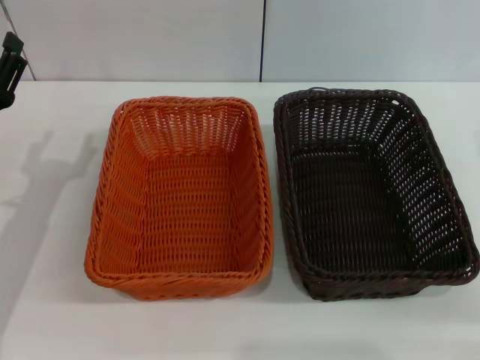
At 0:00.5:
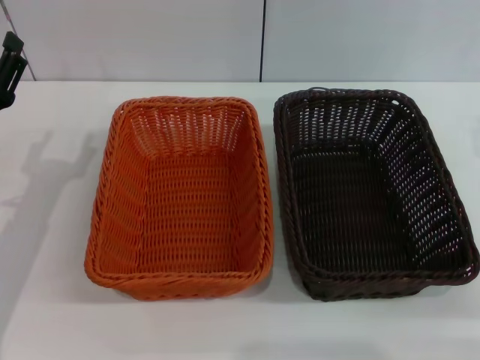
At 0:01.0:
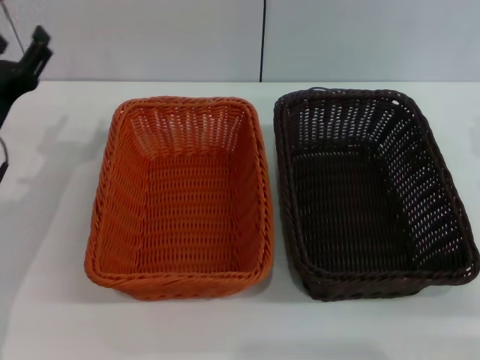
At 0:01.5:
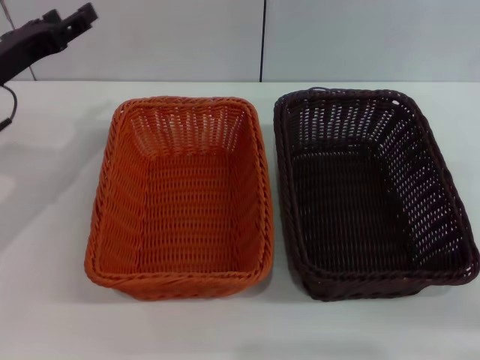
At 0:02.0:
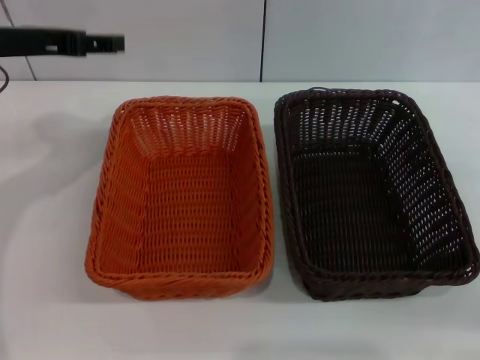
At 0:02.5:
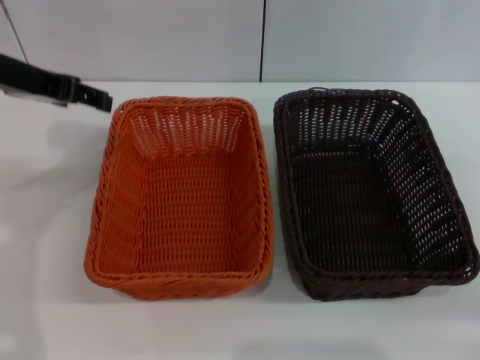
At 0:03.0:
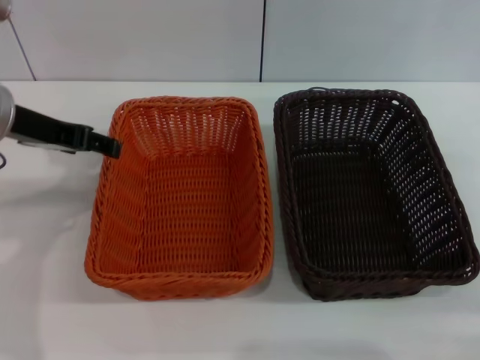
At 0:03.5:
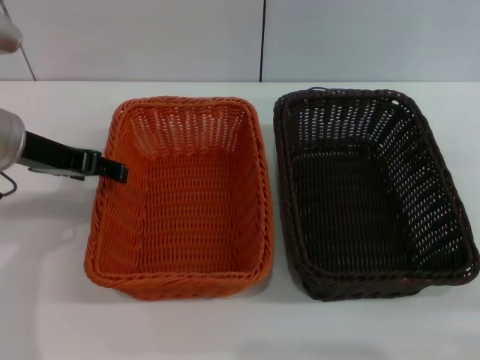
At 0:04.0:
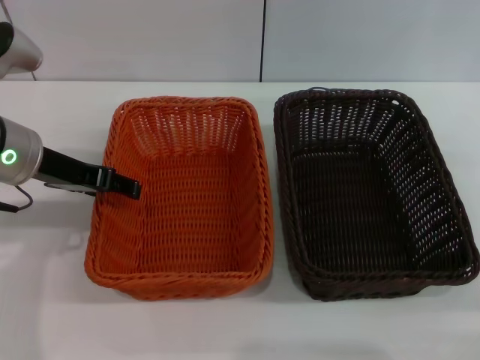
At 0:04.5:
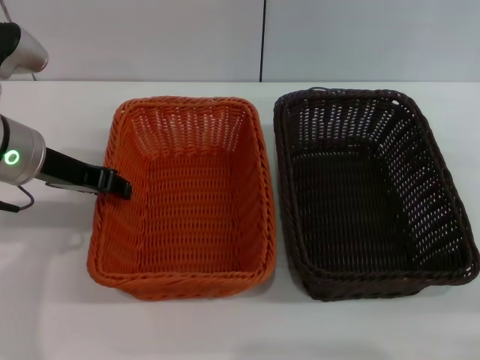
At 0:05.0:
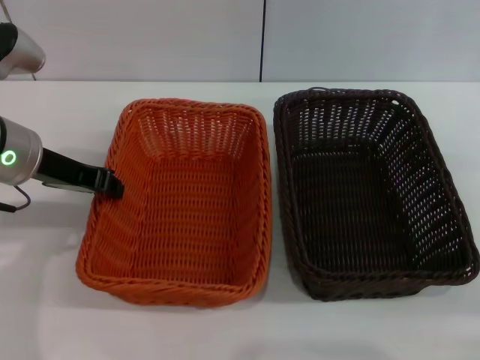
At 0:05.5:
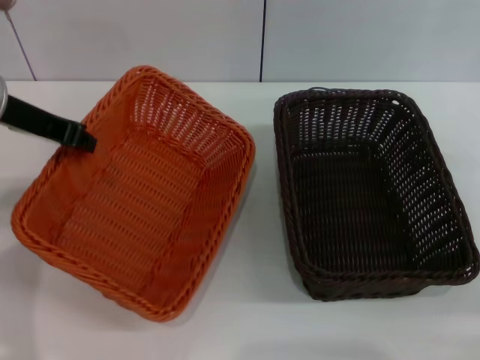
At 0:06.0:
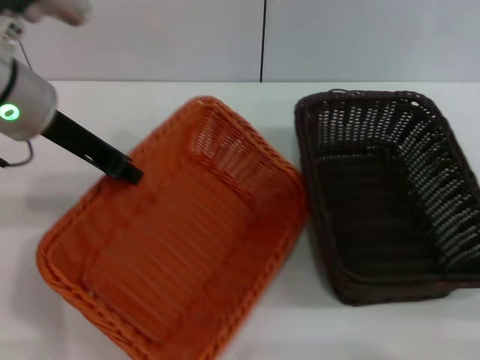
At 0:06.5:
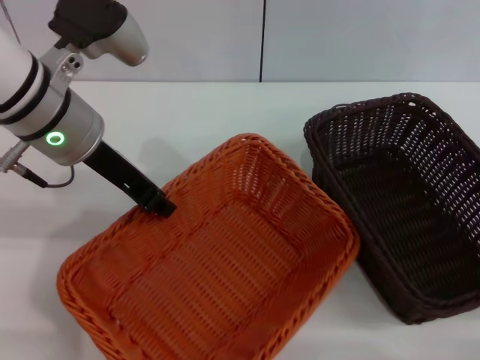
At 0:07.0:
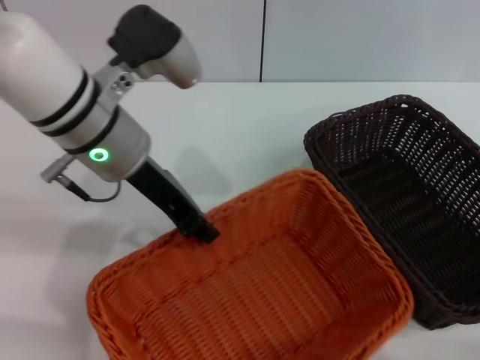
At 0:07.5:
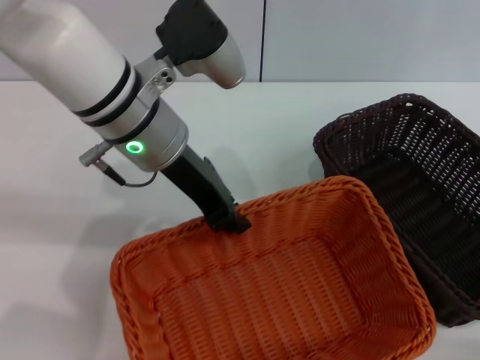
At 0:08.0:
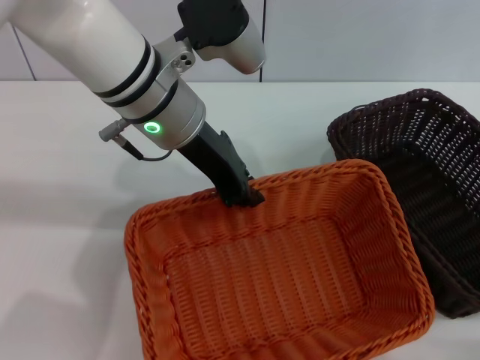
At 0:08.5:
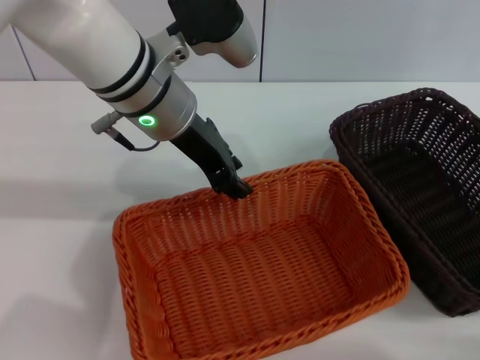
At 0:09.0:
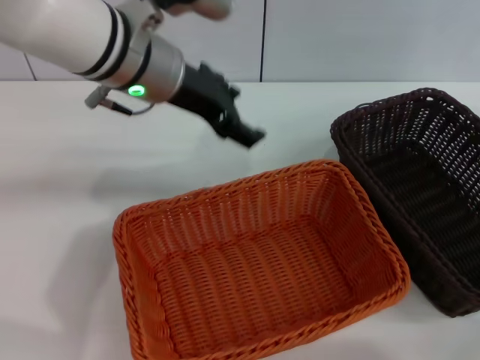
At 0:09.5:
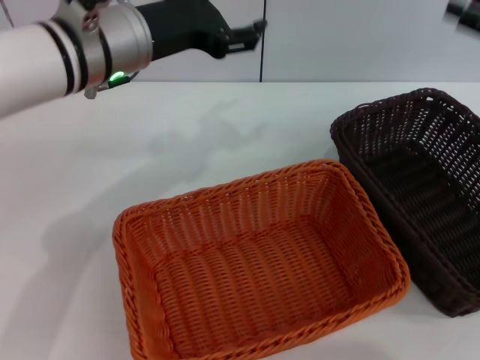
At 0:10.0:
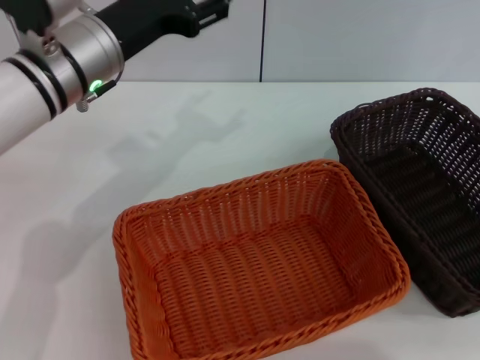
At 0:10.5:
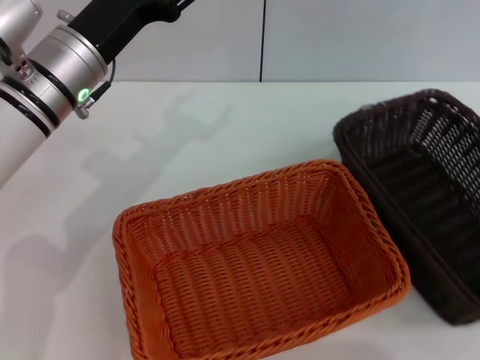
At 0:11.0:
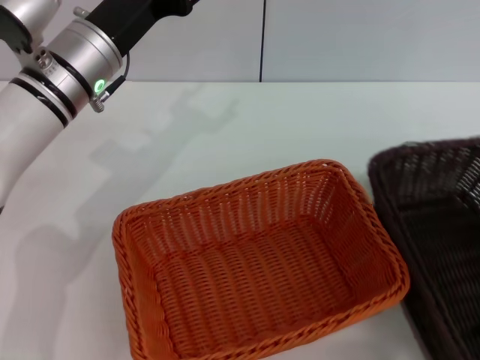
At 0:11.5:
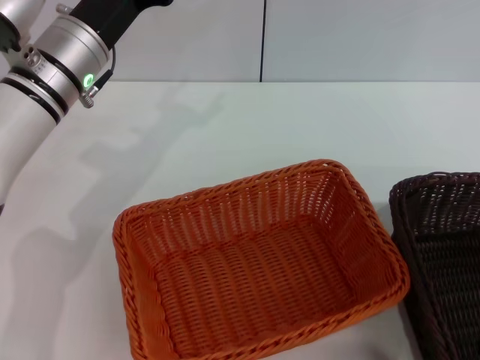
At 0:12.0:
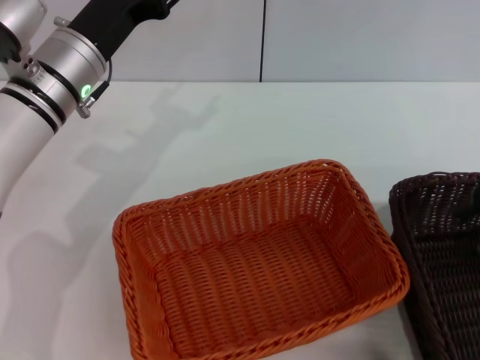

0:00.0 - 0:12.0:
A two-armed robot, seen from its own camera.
Step, 0:00.0 - 0:05.5: Pick up the light basket with the left gripper.
Step, 0:06.0 - 0:08.0: Place the light basket in the center of view with the left gripper.
0:00.0 - 0:02.0: The left gripper shifts approximately 15 cm upward and forward.
0:02.0 - 0:04.0: The left gripper ends up about 5 cm from where it was.
0:04.0 - 0:06.0: The left gripper shifts about 5 cm upward, and closes its fingers.
0:06.0 - 0:08.0: The left gripper travels to the right by some 10 cm.
0:08.0 - 0:10.0: The left gripper travels to the left by about 5 cm, and opens up. Meanwhile the right gripper goes some 15 cm upward.
0:10.0 - 0:12.0: The right gripper goes roughly 5 cm to the left.

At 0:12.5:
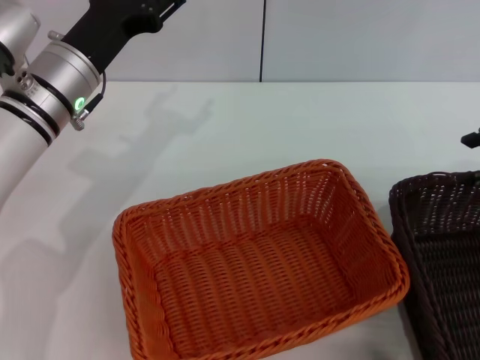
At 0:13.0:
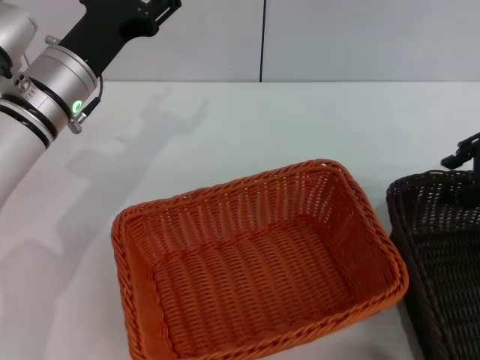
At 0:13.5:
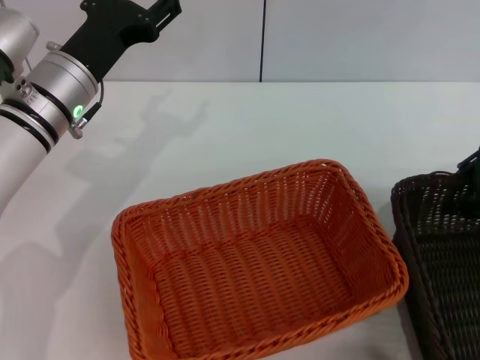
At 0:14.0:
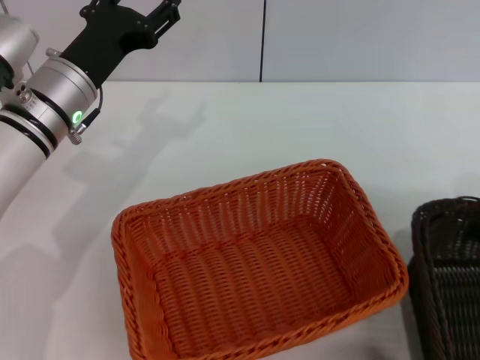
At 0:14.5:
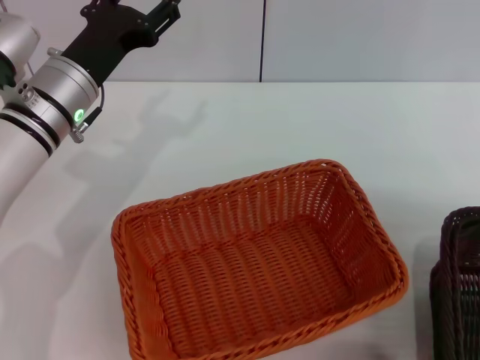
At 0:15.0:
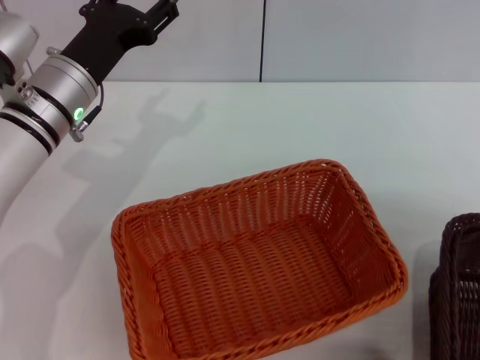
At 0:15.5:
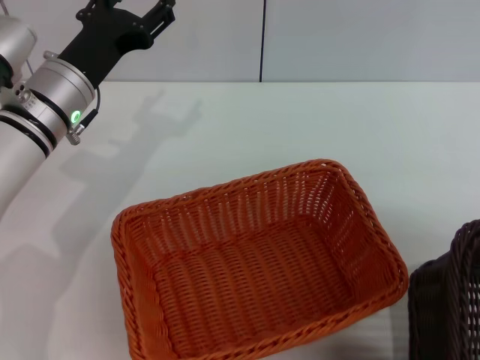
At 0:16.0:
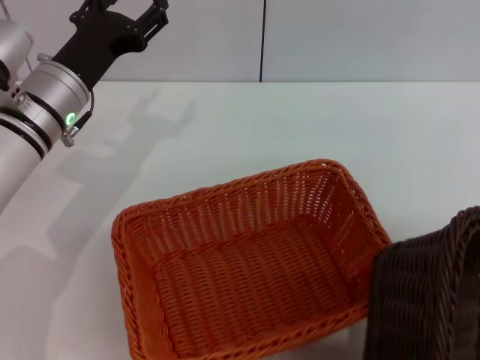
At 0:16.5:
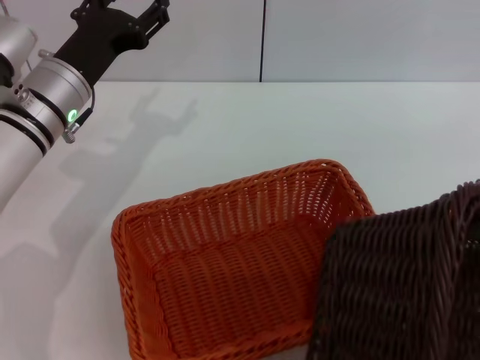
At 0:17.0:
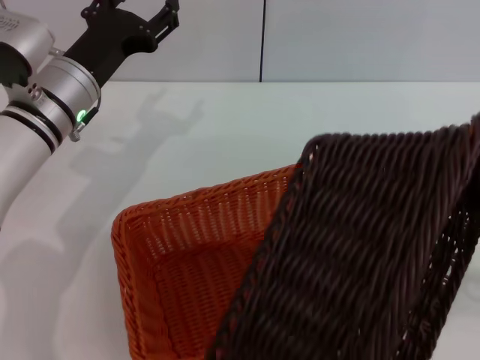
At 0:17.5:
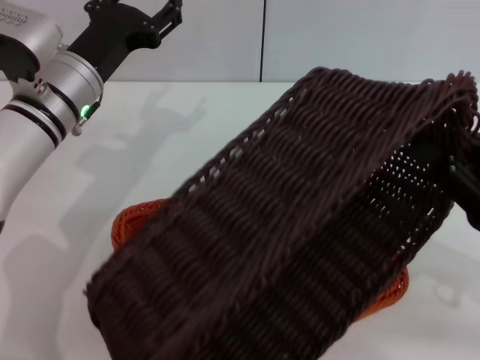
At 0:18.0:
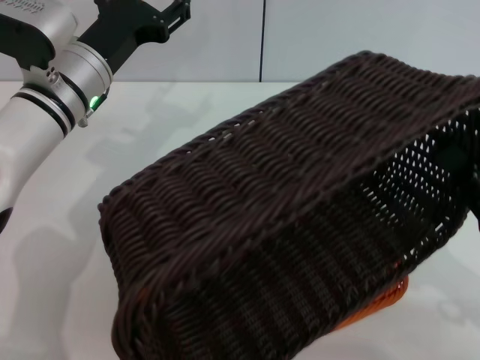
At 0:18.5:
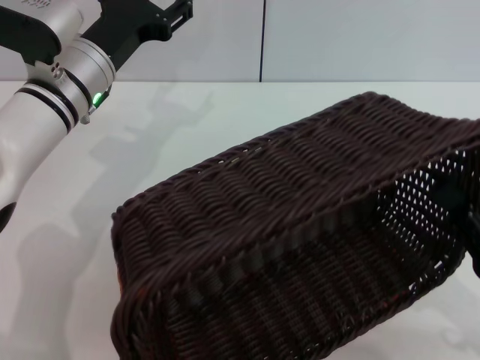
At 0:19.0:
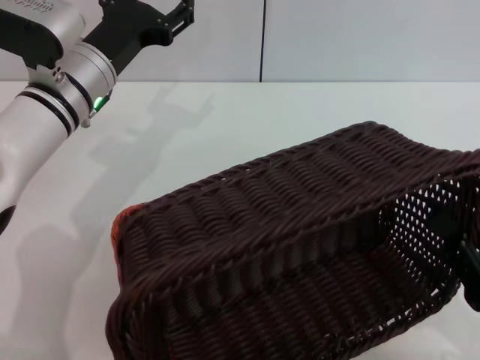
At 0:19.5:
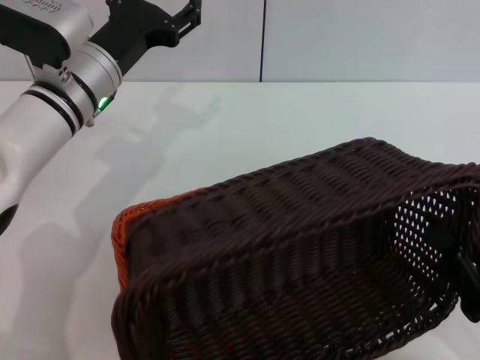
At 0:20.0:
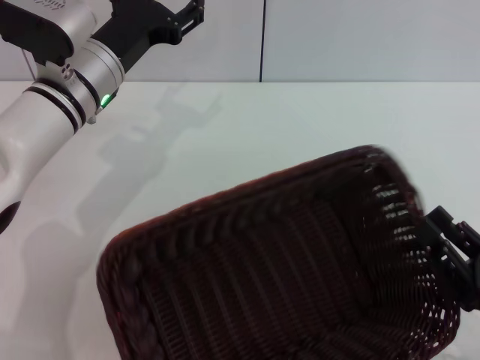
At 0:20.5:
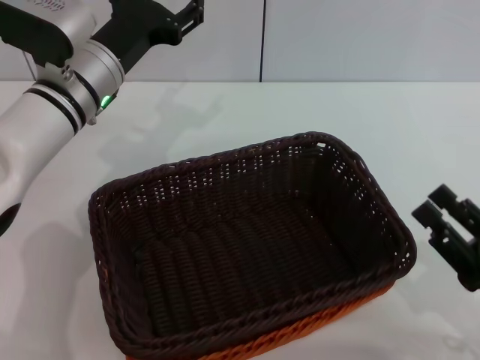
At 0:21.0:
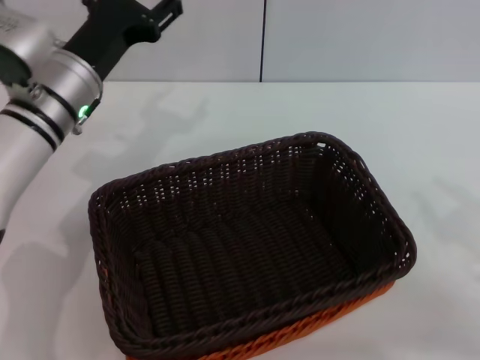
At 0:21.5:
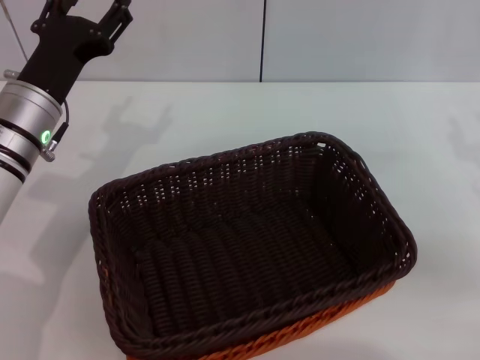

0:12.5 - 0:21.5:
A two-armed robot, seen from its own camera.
Step, 0:12.5 - 0:15.0: Pick up the dark basket with the right gripper.
Step, 0:15.5 - 0:20.0: Place the dark basket on the light basket with the right gripper.
0:12.5 - 0:14.5: The right gripper moves some 5 cm, and closes its fingers.
0:14.5 - 0:17.0: The right gripper travels backward by some 5 cm.
0:17.0 - 0:19.5: The right gripper shifts about 20 cm downward and backward.
0:19.5 - 0:21.5: The right gripper goes some 20 cm forward and upward, and opens up, while the left gripper changes place by some 5 cm.
